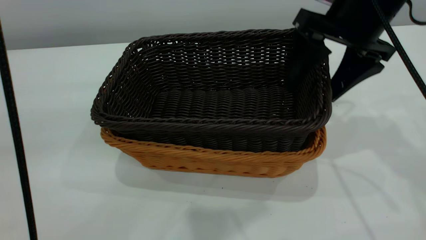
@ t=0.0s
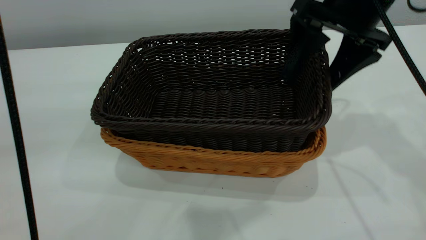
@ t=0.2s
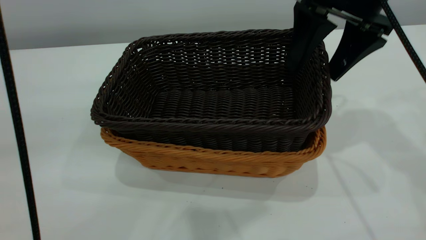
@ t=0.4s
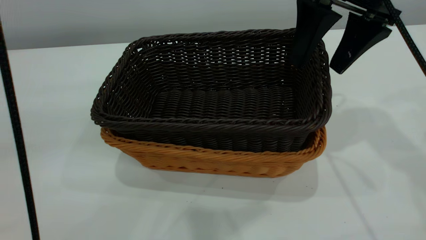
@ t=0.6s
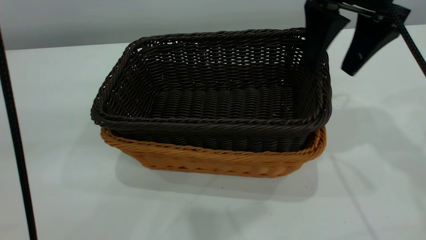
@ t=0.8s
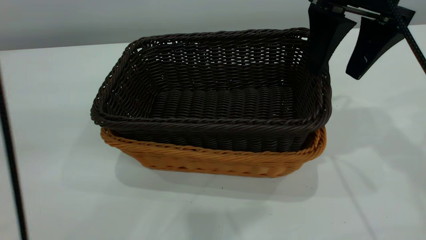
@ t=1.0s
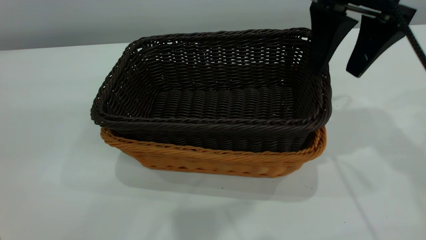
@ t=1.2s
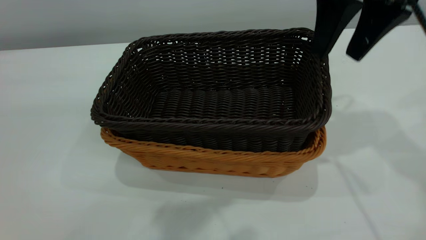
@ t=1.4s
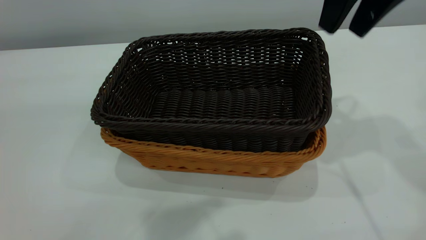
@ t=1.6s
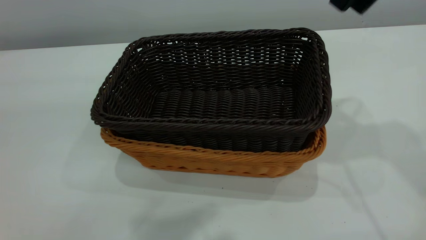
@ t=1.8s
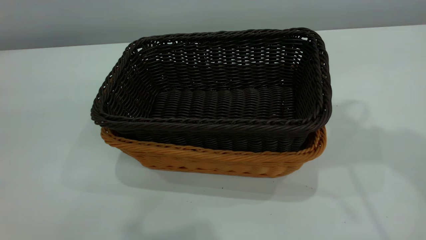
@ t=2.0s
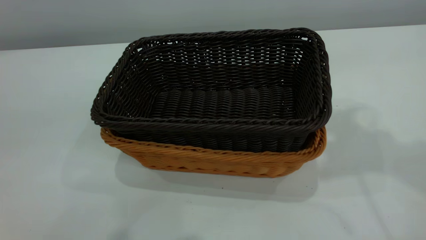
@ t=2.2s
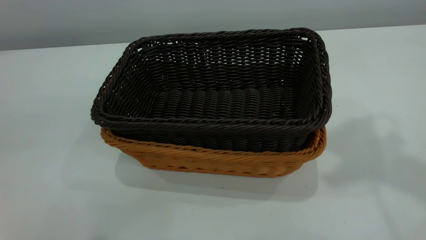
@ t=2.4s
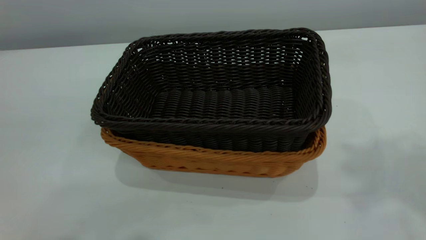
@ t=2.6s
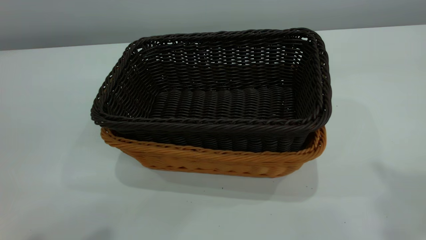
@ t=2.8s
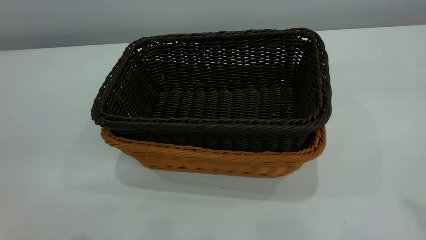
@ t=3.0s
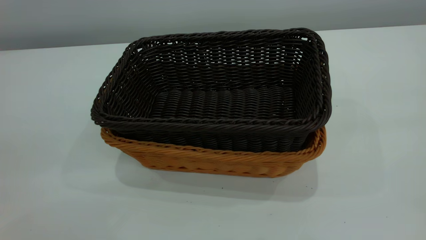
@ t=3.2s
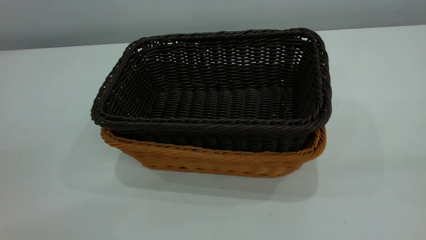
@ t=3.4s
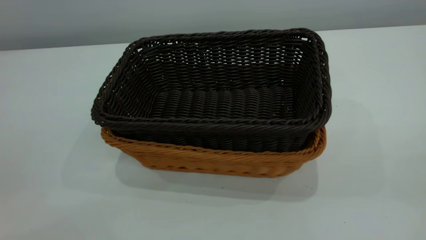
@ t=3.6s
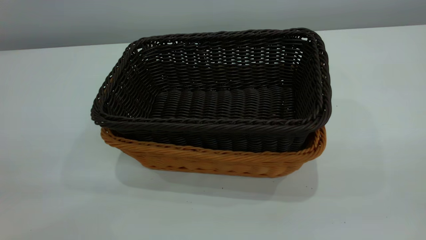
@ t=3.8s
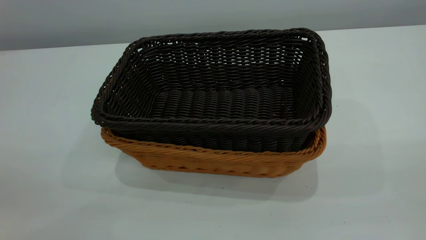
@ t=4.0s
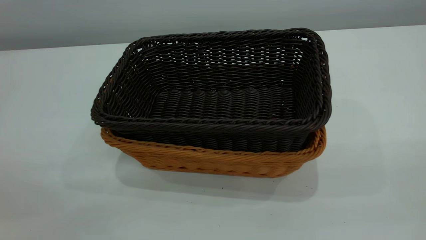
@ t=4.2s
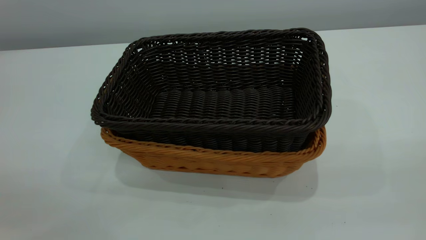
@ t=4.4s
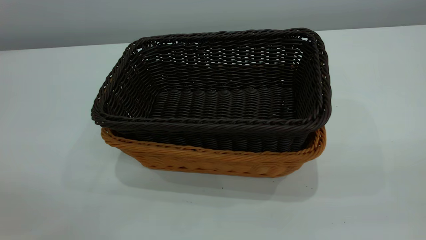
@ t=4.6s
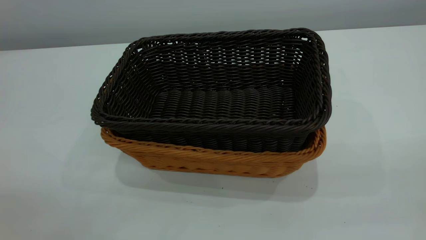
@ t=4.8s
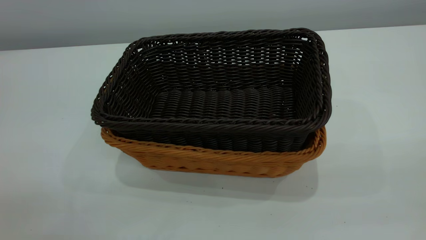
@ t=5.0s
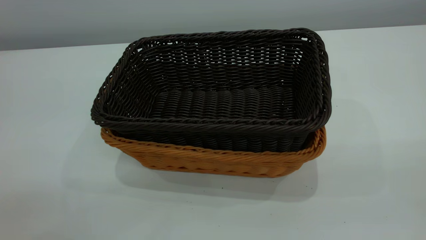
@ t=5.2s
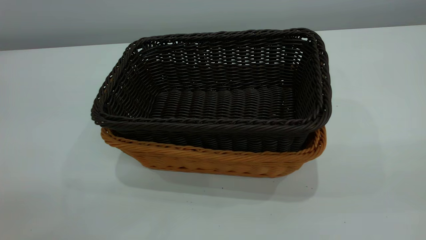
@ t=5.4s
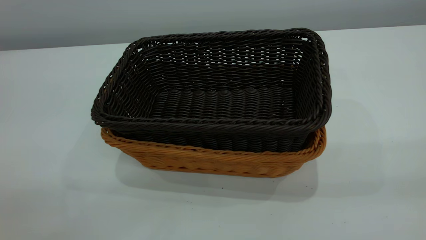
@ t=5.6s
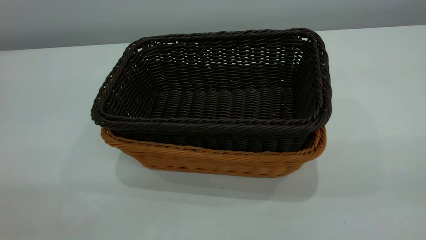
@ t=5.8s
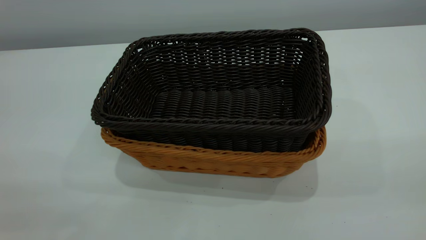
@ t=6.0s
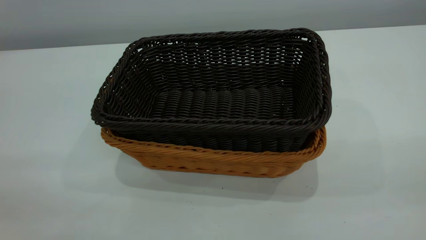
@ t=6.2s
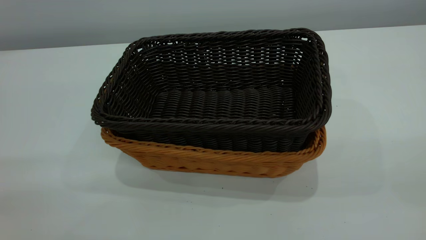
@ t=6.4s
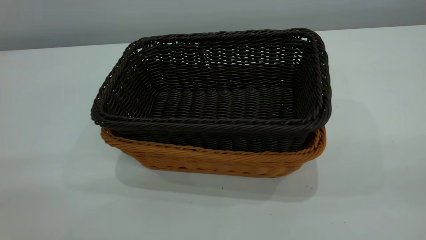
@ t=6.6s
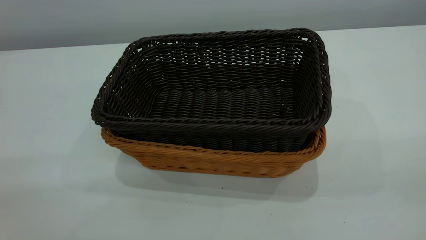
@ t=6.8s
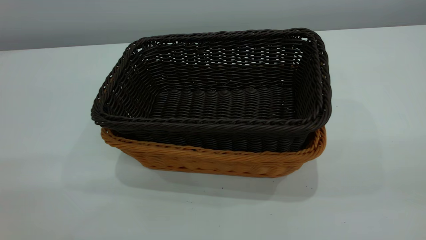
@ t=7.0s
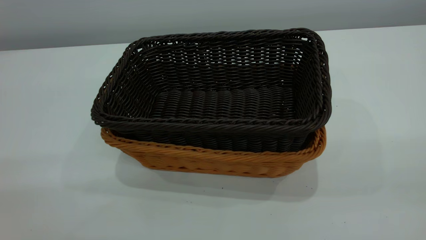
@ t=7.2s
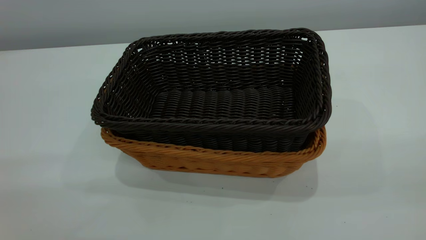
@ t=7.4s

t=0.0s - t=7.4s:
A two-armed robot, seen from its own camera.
Task of the whole recording: the left gripper grasp the brown basket and place it in the center of the table, the right gripper grasp the black basket and place it inside the brown one.
t=0.0s - t=1.4s: The right gripper is displaced upward by some 5 cm.
t=1.4s - t=3.0s: The right gripper goes roughly 30 cm backward, upward and to the right, and closes up.
